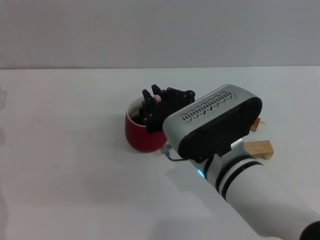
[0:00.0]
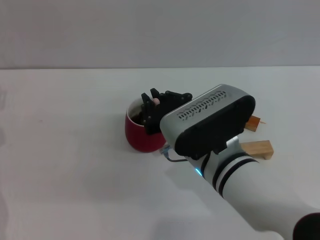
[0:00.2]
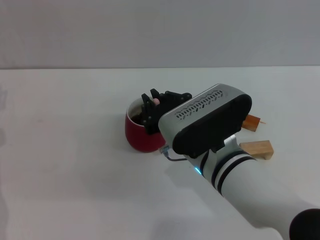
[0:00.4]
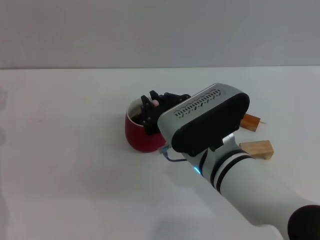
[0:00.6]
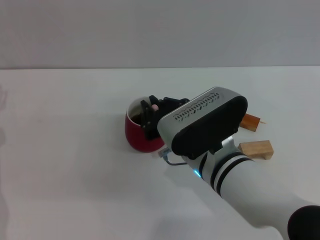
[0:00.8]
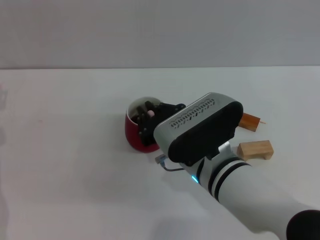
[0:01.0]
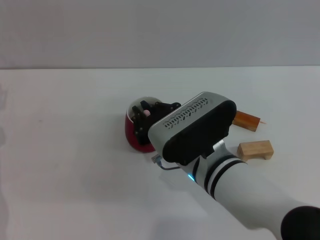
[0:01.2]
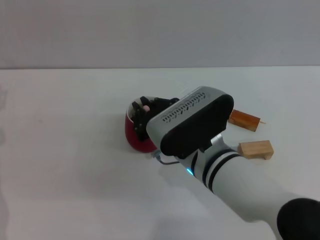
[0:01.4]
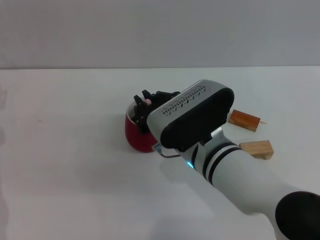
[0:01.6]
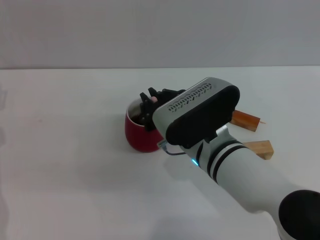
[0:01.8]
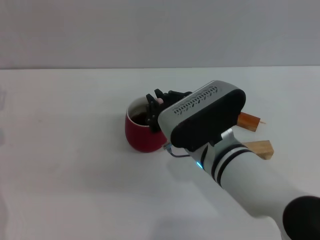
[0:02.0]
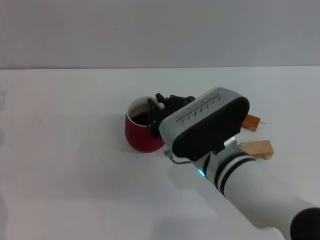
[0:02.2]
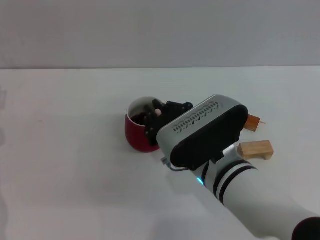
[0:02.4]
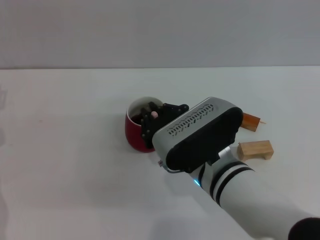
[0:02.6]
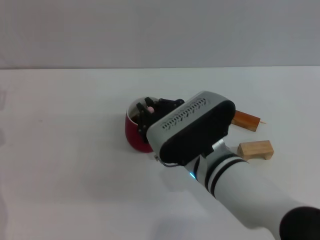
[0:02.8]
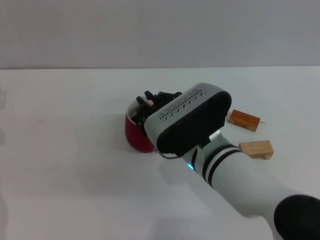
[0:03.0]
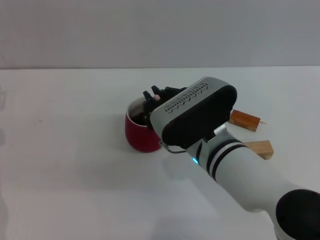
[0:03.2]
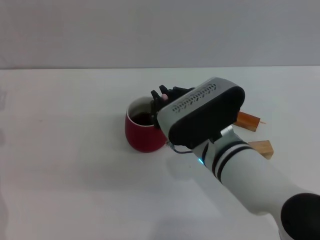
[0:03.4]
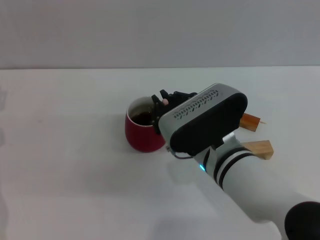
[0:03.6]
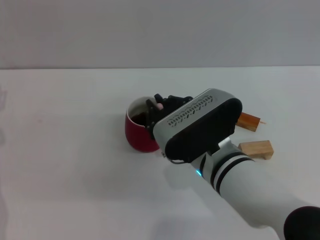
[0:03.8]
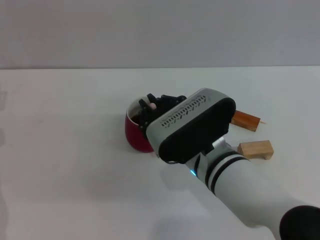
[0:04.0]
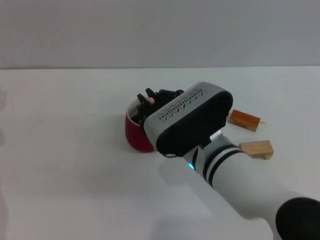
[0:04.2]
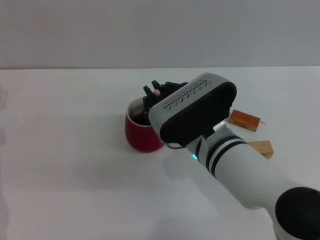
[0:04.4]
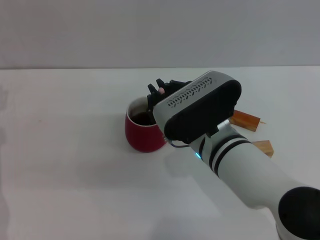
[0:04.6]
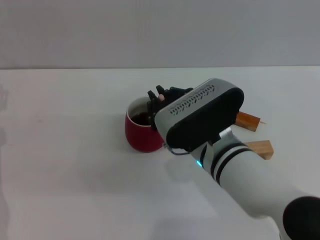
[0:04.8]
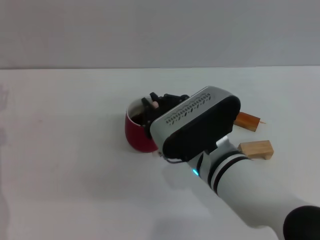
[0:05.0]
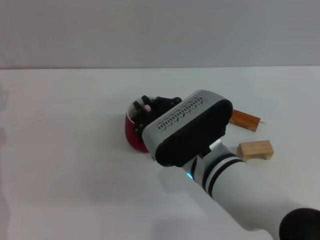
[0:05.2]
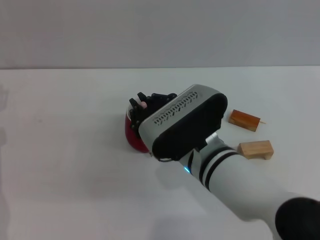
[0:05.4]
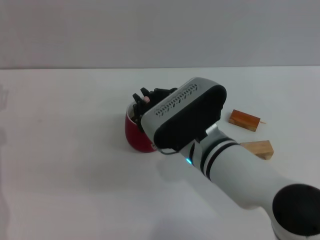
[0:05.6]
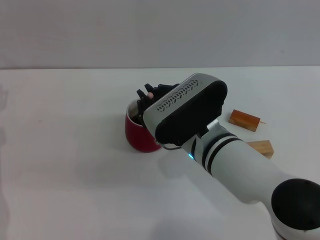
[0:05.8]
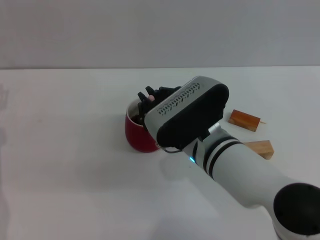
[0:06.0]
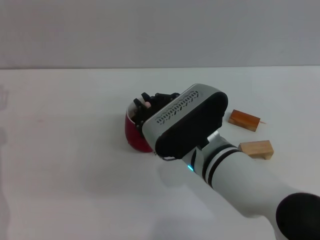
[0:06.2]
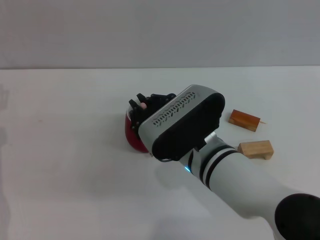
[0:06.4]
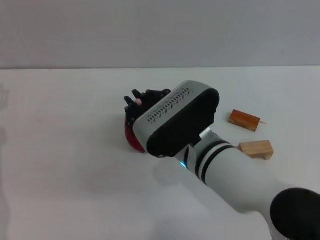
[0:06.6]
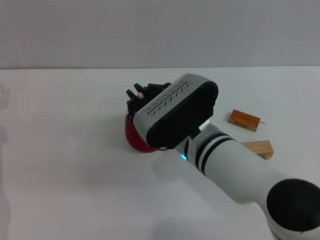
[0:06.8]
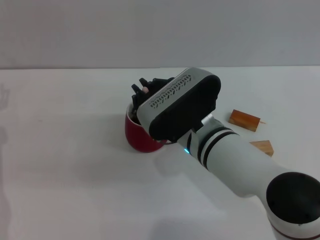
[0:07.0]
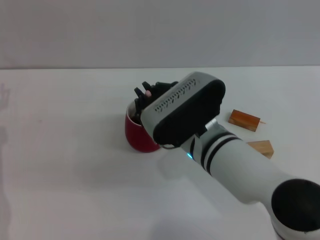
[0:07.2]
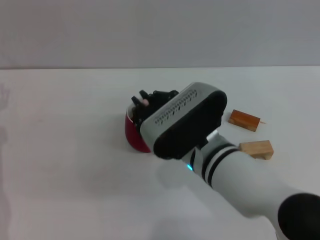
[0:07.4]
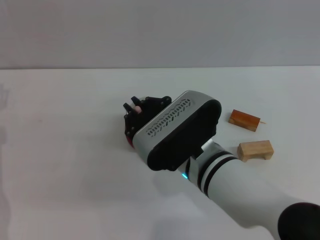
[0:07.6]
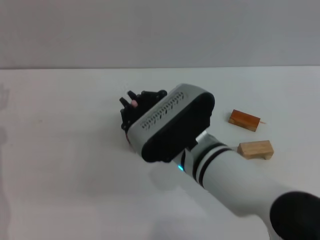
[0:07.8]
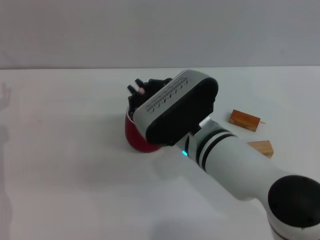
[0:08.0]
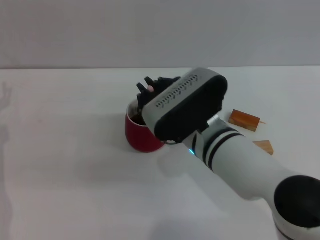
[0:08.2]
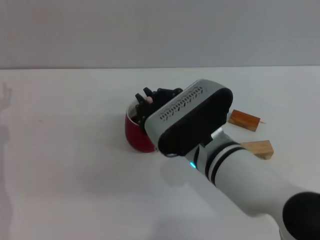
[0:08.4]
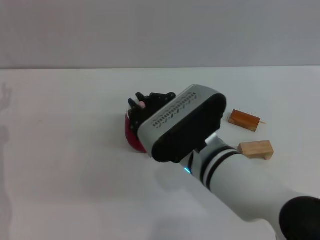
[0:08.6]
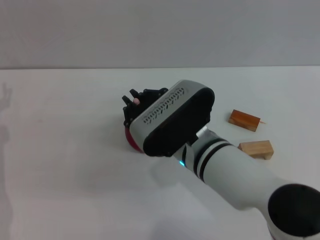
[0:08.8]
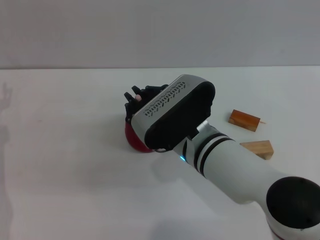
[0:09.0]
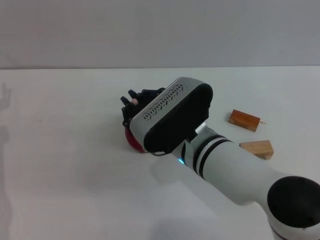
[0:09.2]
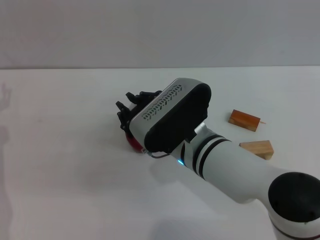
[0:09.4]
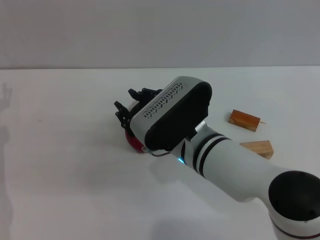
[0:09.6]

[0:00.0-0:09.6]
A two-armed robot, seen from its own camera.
Task of the whole recording: Move the red cup to the center, lift the pink spoon, stir it three times in the cup, and put the spoon into the cup.
0:00.0 to 0:09.6: The grippers move only a little.

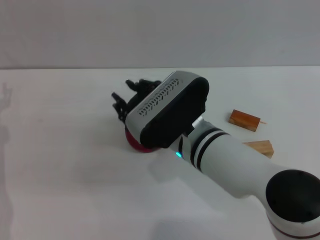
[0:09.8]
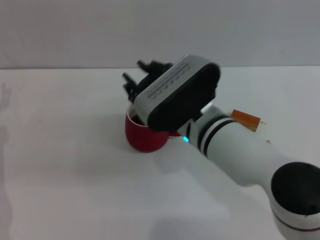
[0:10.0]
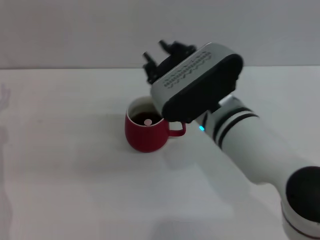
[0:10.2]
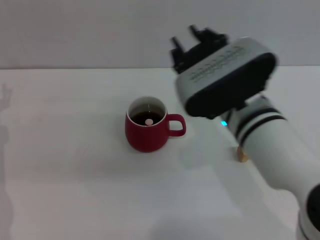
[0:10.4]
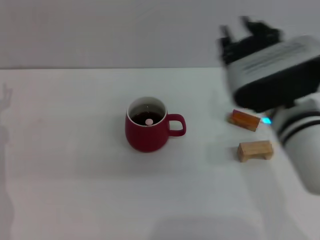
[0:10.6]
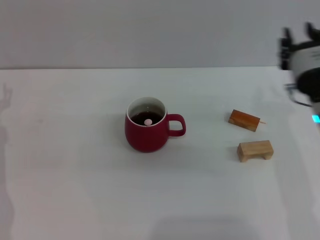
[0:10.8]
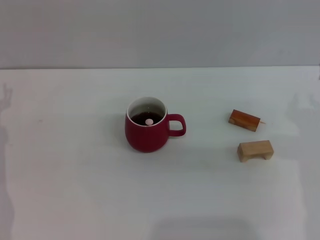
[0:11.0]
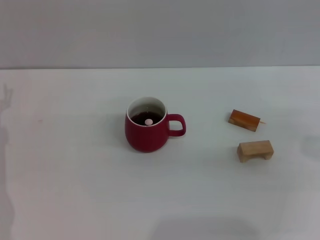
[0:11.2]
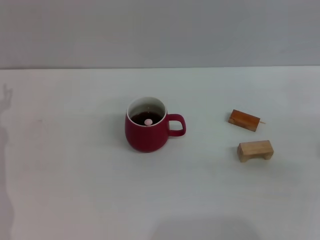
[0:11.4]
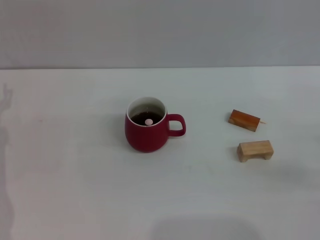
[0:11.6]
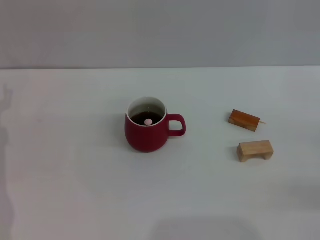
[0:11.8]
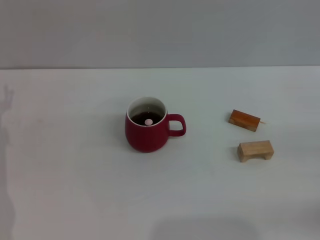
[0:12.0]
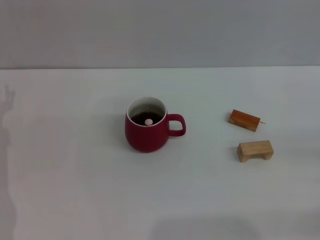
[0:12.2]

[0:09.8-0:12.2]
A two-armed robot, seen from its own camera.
Task of the whole recording: Move the red cup to the center, lift the pink spoon, stir it three times in the cup, and put the spoon into the cup.
0:09.8 to 0:11.0: The right gripper is displaced to the right by approximately 20 cm.
0:11.0 to 0:12.2: The right gripper shifts about 20 cm to the right and downward.

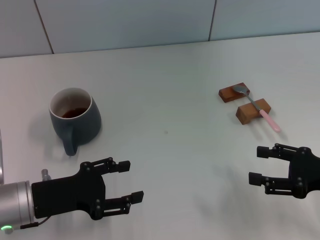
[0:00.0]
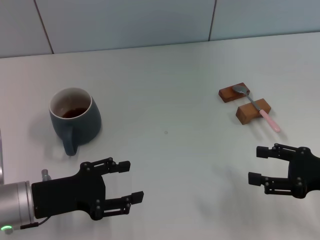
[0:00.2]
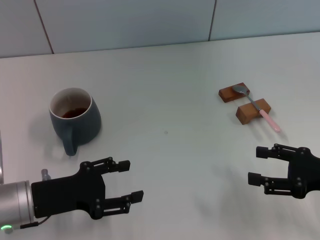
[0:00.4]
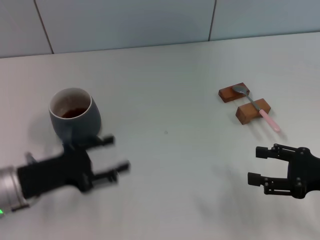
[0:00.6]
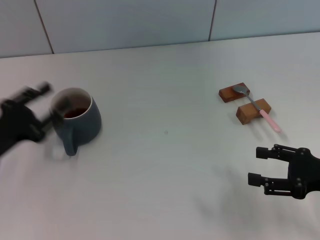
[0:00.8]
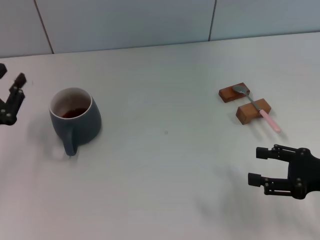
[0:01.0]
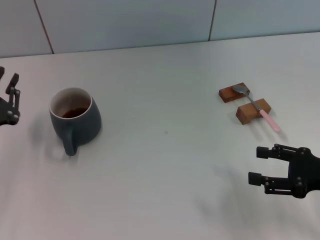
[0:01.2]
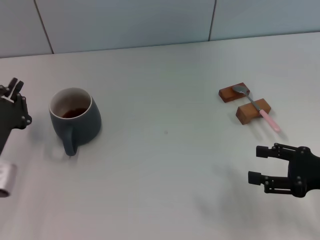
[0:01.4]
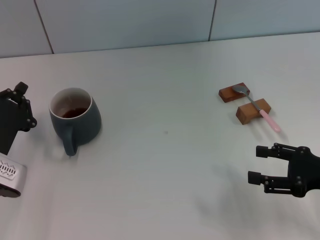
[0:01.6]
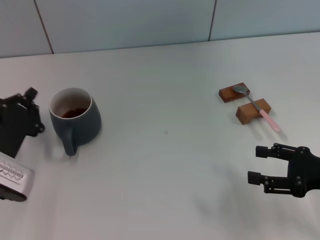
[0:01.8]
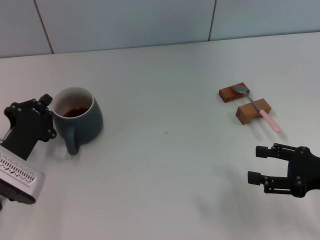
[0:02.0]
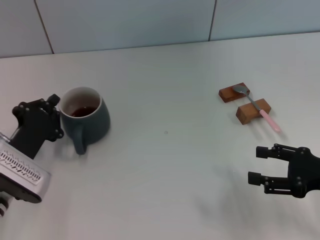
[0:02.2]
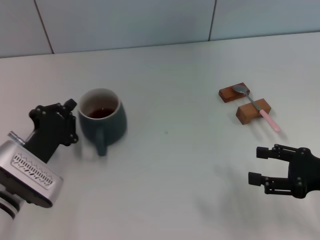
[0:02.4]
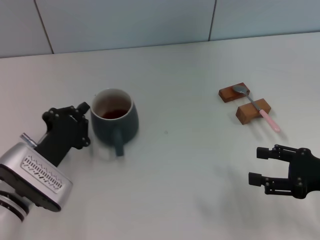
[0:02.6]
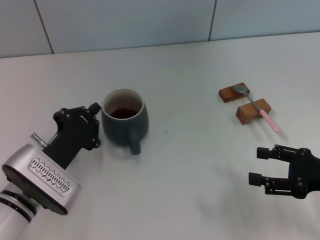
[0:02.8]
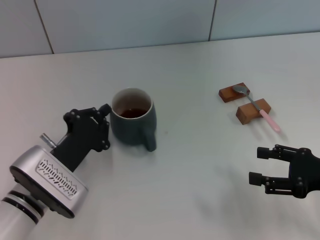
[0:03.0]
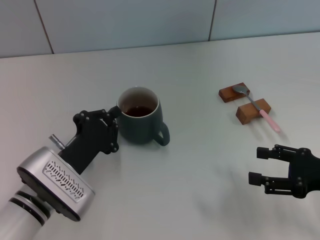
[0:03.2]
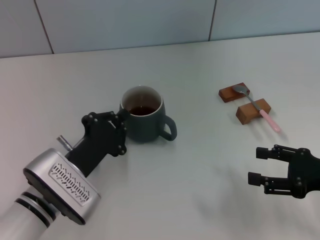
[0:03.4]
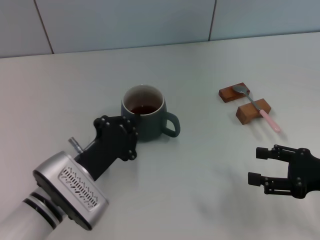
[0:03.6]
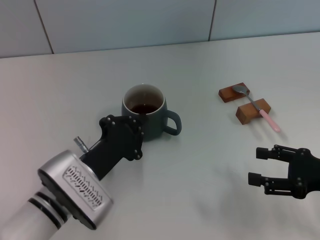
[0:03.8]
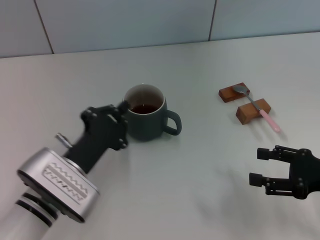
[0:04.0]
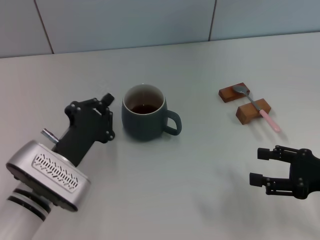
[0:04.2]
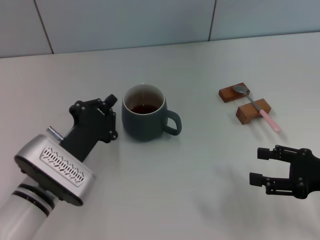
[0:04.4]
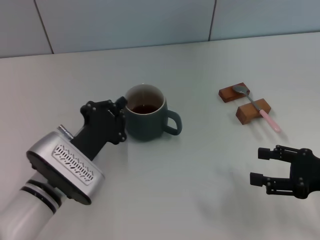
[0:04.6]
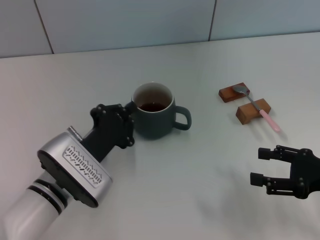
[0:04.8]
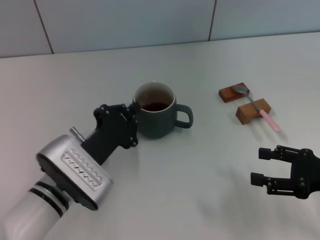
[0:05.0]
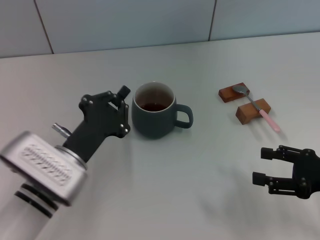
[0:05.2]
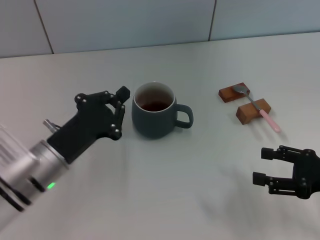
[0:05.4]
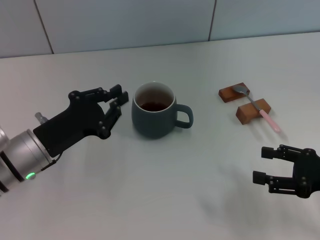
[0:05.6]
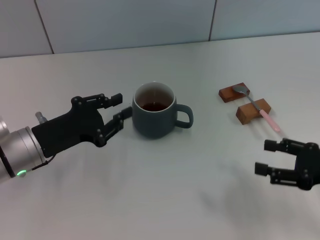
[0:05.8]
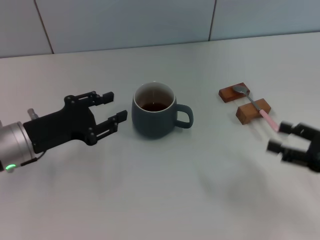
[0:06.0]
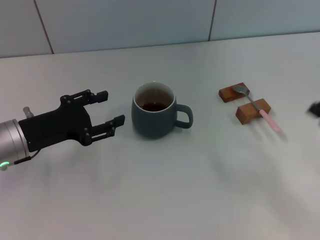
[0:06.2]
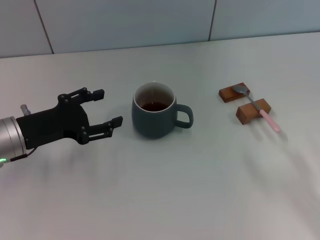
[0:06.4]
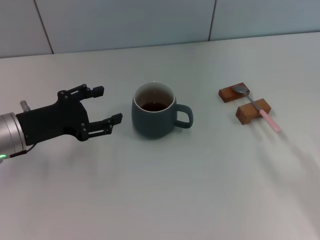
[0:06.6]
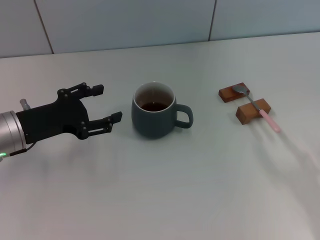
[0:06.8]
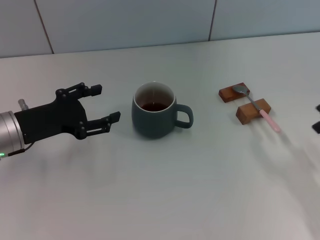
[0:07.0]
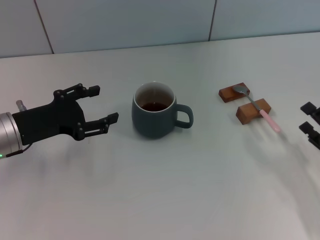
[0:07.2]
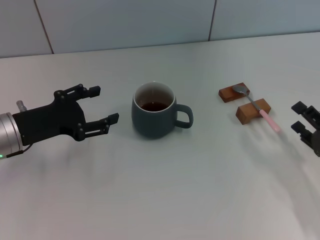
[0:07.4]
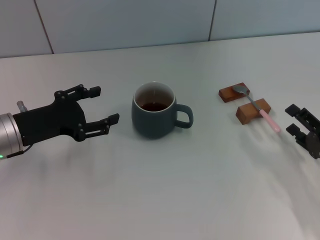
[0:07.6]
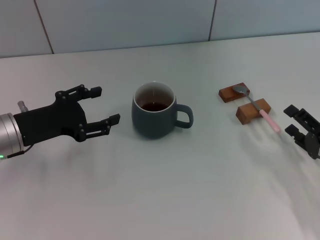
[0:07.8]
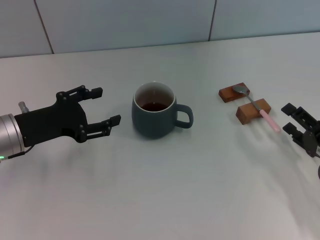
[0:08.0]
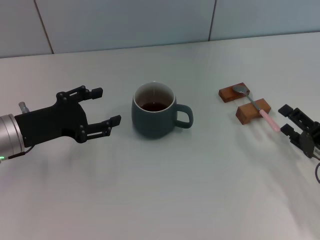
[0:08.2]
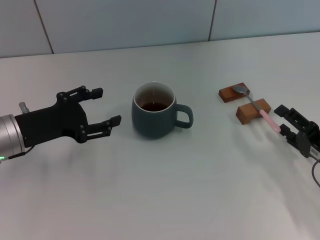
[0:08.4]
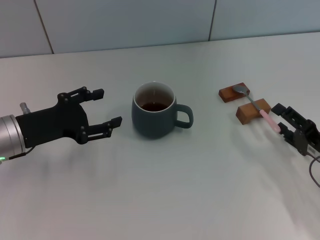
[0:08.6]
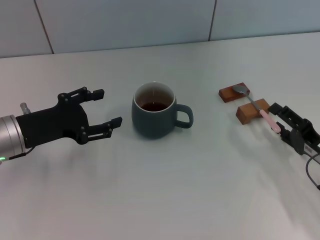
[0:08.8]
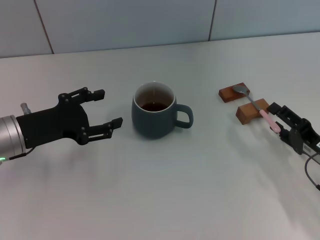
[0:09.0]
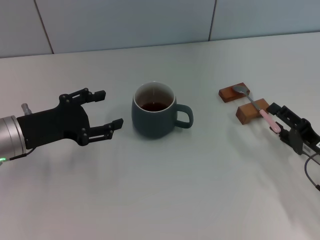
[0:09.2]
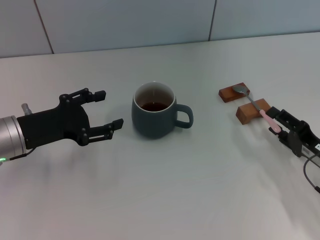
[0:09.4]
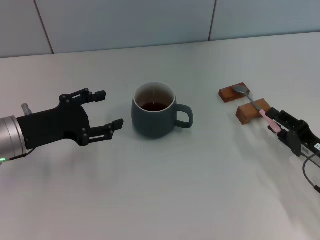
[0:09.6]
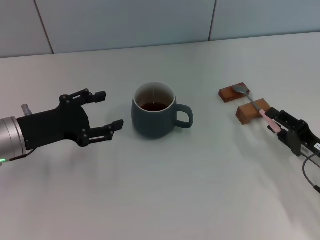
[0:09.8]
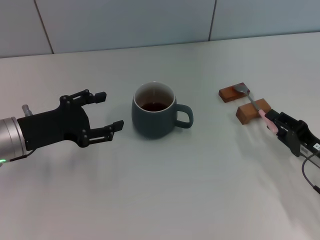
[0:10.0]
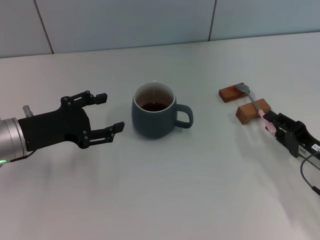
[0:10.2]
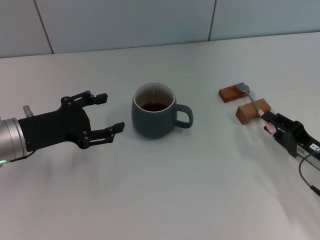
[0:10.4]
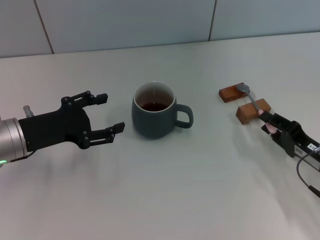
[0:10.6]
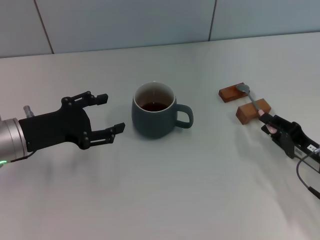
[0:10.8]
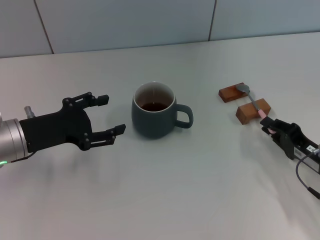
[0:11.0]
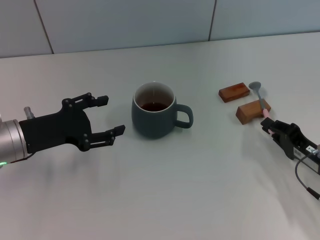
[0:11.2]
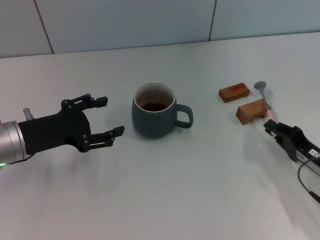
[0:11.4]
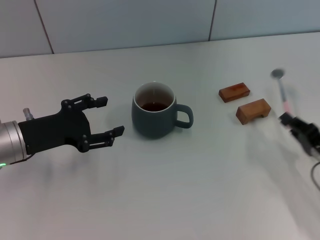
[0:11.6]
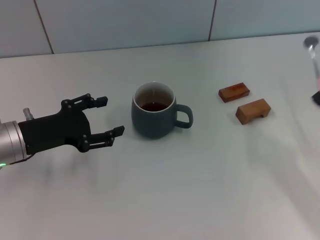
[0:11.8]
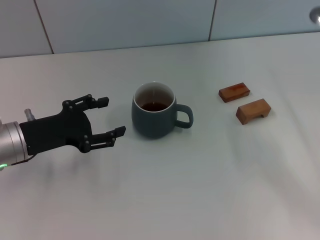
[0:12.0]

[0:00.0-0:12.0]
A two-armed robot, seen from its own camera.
Task of the whole recording: Move the grey cup to the center, lift the pink spoon, stir it three times in the cup, and put the spoon into the cup.
Step, 0:00.0 to 0:05.2: Move the cup with coffee to the center of view with the left gripper.
Step, 0:05.4 to 0:11.4: Pick up the spoon with the right gripper.
0:00.0 to 0:01.6: The left gripper closes its fingers.
0:01.6 to 0:03.0: The left gripper shifts some 10 cm to the right.
0:03.0 to 0:04.4: There are only small adjustments of the grippers.
0:04.4 to 0:06.0: The left gripper heads to the left and upward, covering approximately 10 cm, and opens its fingers.
0:06.0 to 0:07.6: The right gripper heads downward, covering some 5 cm; the left gripper opens.
0:07.6 to 0:09.0: The grippers move only a little.
0:09.0 to 0:10.4: The right gripper closes.
0:10.4 to 0:12.0: The right gripper travels upward and to the right by approximately 10 cm, and closes its fingers.
